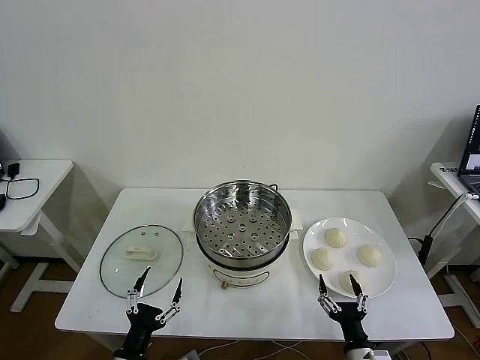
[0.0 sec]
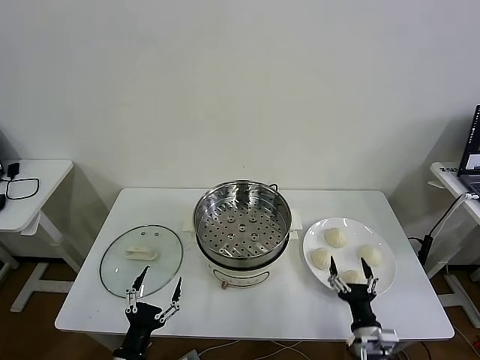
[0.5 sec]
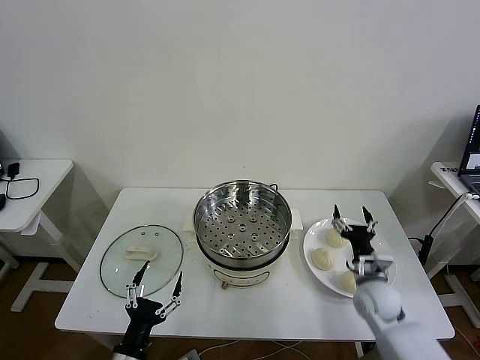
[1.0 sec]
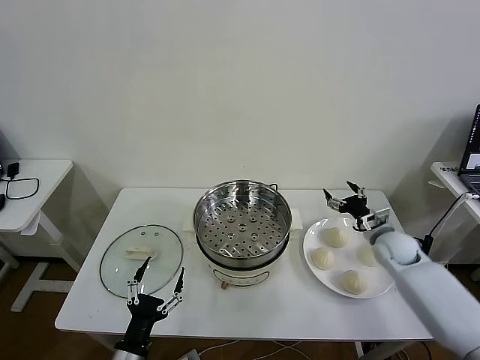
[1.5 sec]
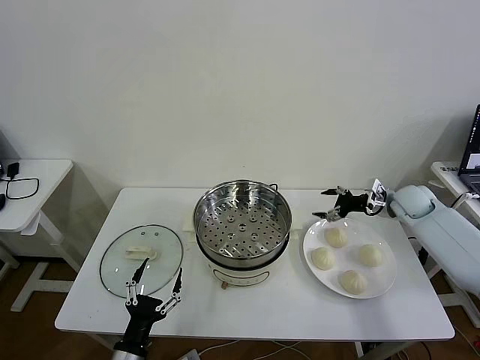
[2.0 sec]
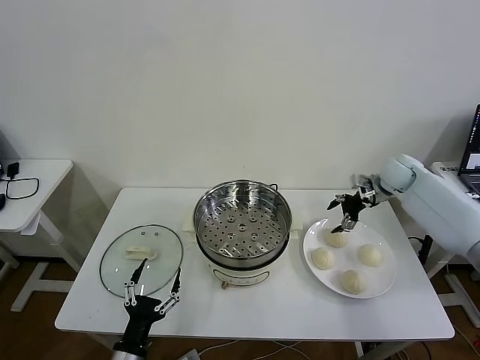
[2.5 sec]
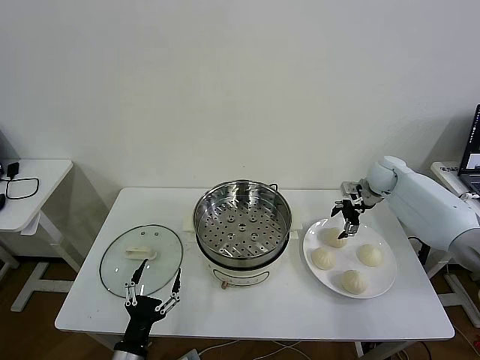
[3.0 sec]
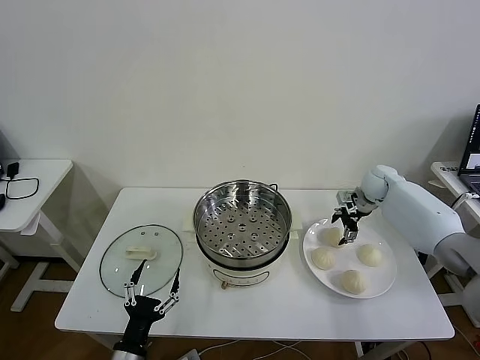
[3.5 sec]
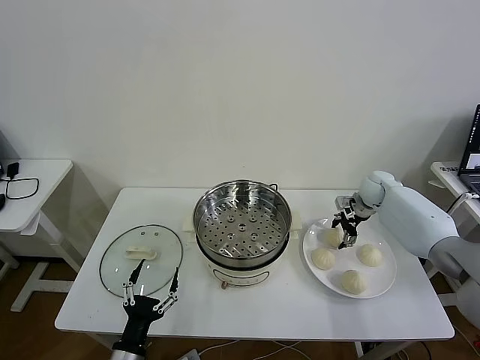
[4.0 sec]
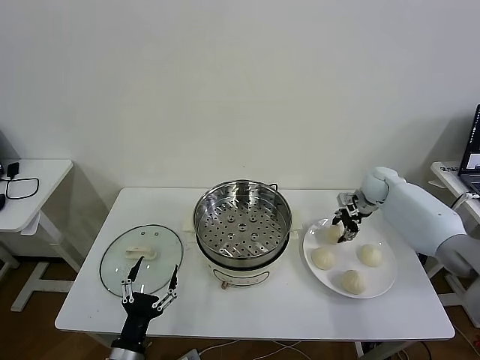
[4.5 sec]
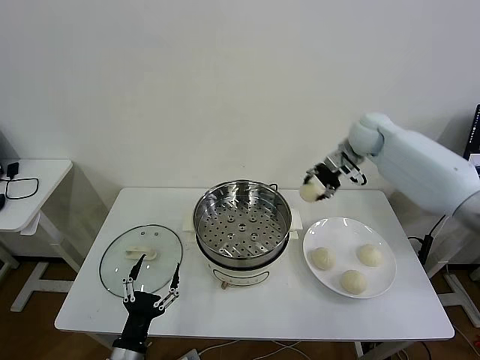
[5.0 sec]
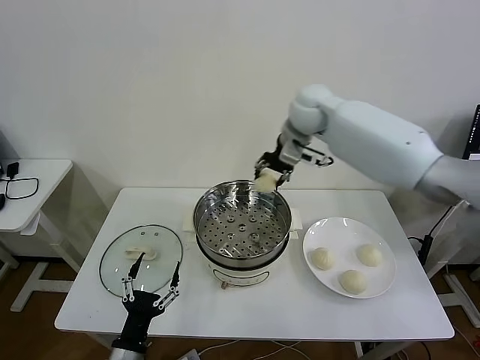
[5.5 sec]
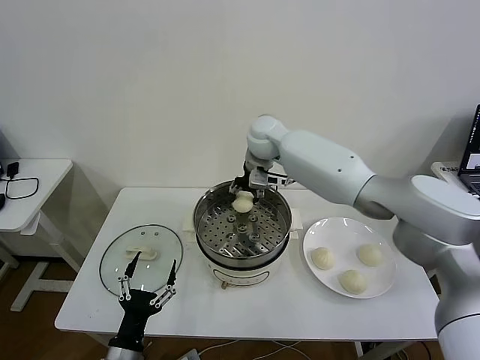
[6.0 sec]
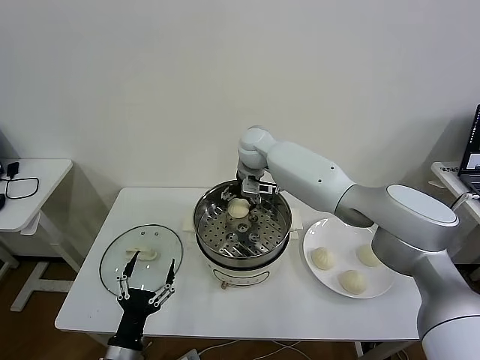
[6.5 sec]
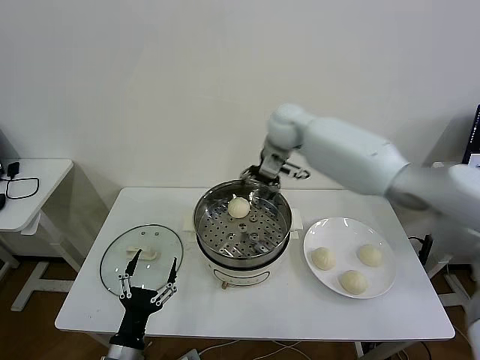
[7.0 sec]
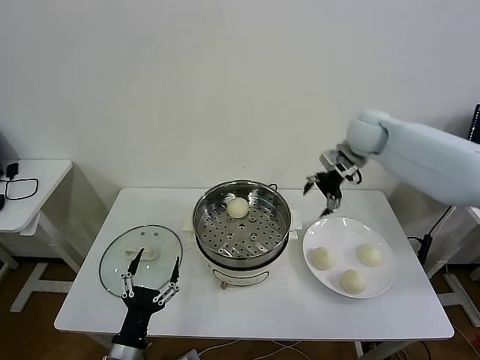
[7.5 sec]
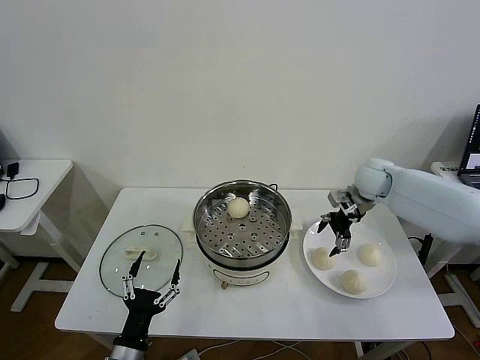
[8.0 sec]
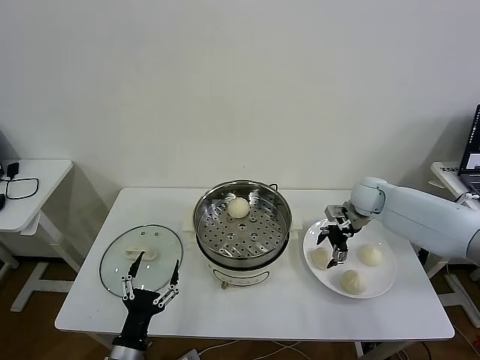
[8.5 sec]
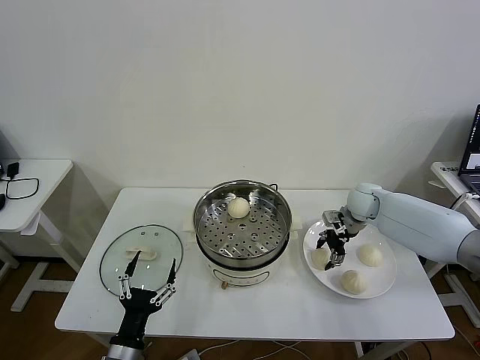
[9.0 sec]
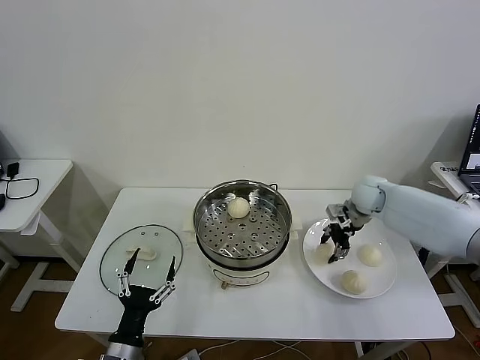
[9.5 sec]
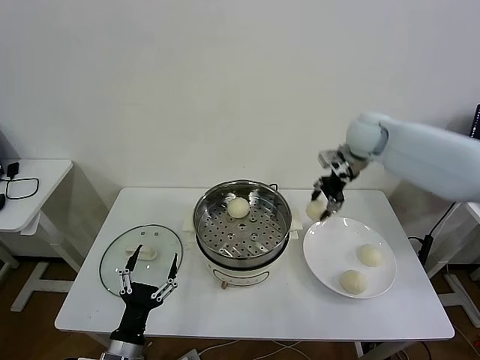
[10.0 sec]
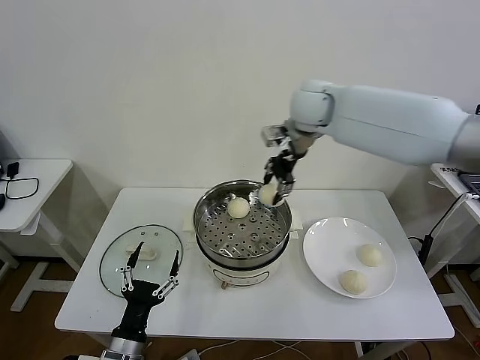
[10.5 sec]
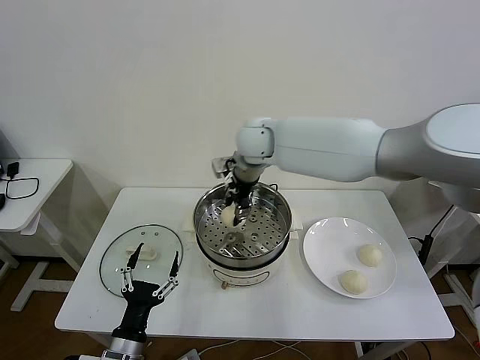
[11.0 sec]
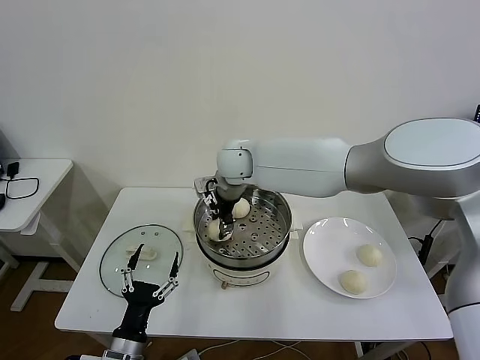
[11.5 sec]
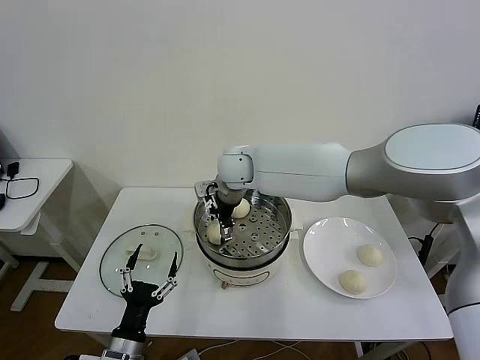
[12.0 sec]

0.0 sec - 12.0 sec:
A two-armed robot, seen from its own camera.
Task of the whole recording: take steamed baozi put them in steamer then cover it.
Step, 0.0 sec - 4.0 sec: Grasp the baozi in the plate with right gripper.
Step, 4.5 sec - 7.0 sec: Place the baozi on the steamer with right gripper.
Step, 7.5 sec - 9.0 sec: Grasp the baozi in the plate with right gripper.
2.0 sec - 4.0 sec: The right gripper heads to the left and forward, covering approximately 10 cm.
4.0 sec - 6.0 sec: The right gripper heads to the left and upward, covering approximately 35 cm, and closes up.
6.0 sec - 8.0 sec: The right gripper moves to the right, approximately 30 cm, and opens.
8.0 sec - 10.0 sec: The right gripper is displaced upward and to the left by approximately 15 cm, and closes its fingers.
10.0 sec - 12.0 sec: The right gripper heads to the left, covering roughly 25 cm, and opens up.

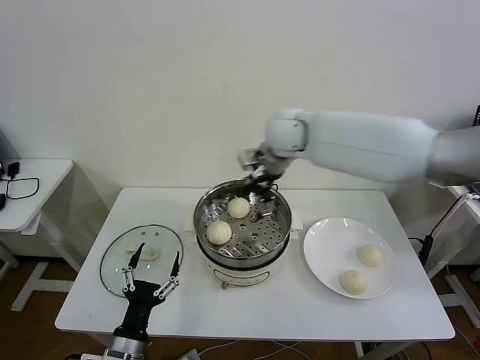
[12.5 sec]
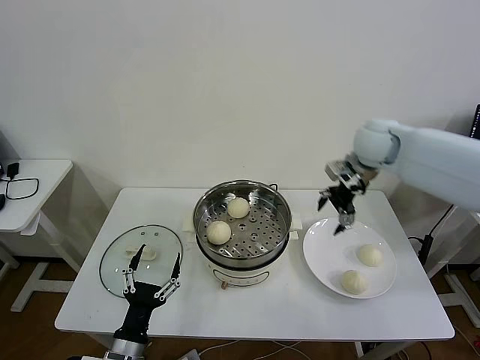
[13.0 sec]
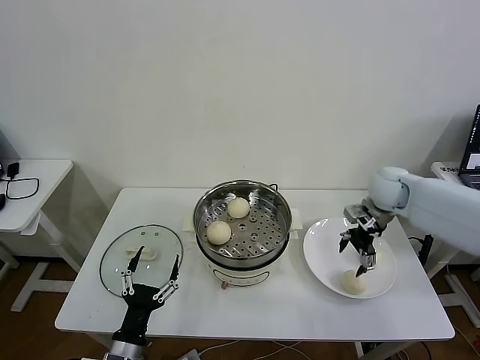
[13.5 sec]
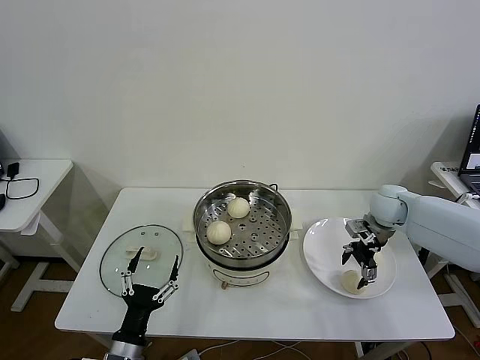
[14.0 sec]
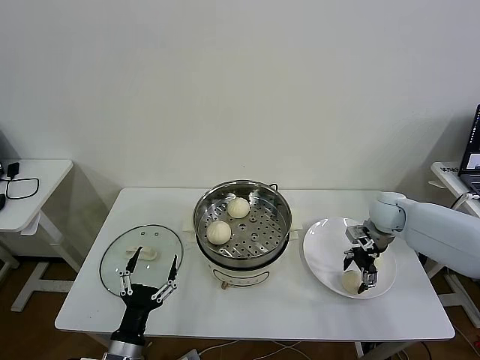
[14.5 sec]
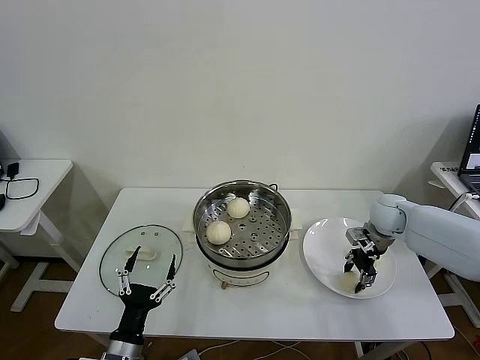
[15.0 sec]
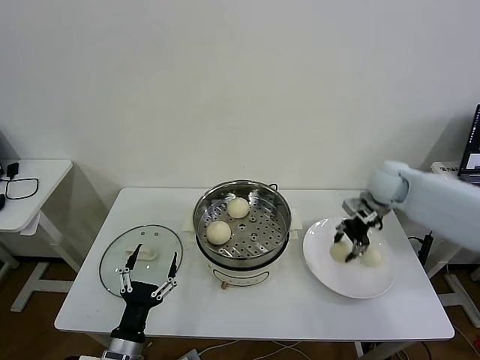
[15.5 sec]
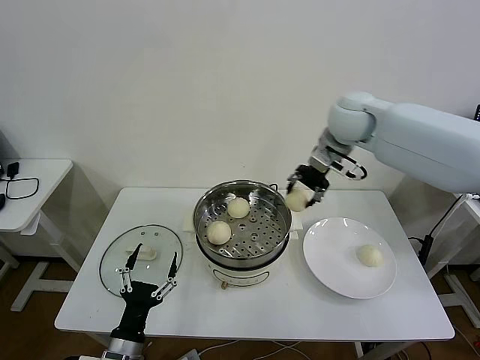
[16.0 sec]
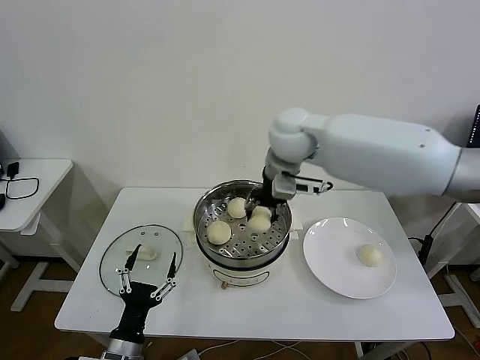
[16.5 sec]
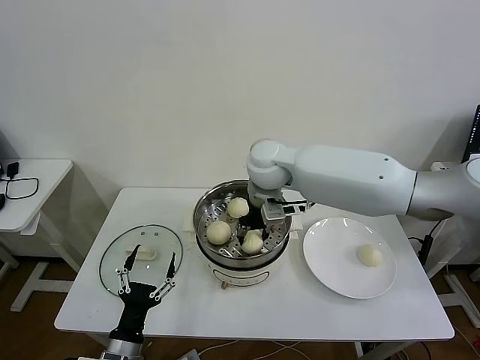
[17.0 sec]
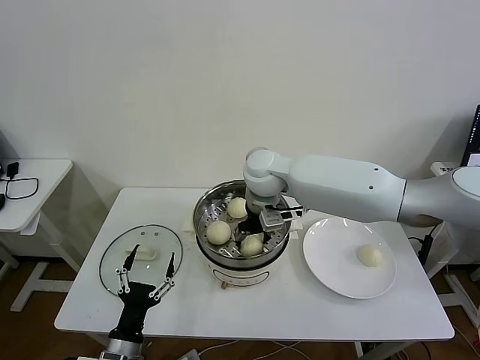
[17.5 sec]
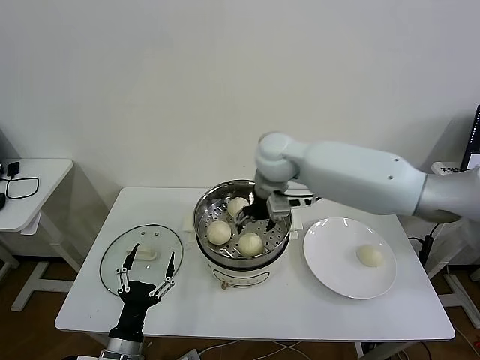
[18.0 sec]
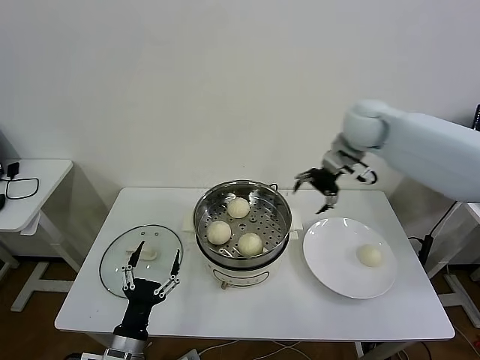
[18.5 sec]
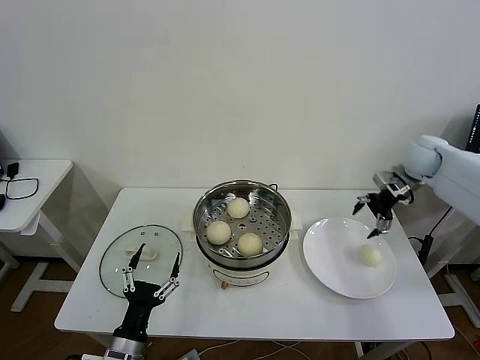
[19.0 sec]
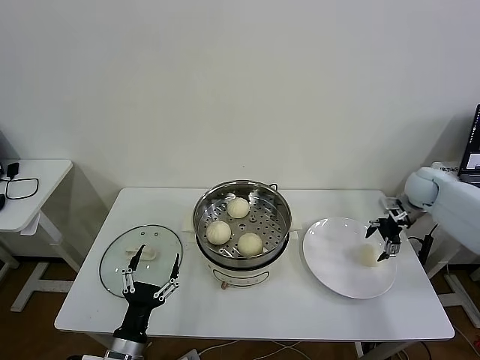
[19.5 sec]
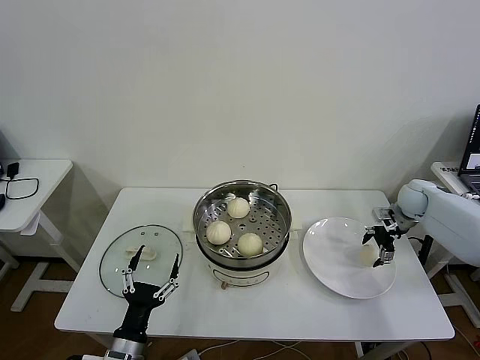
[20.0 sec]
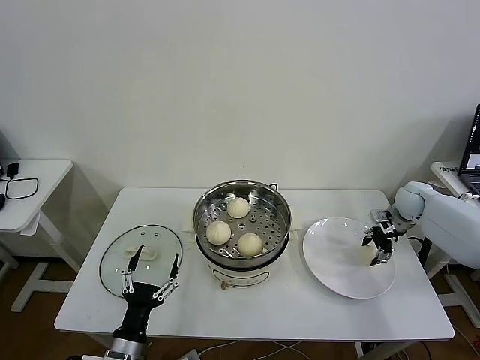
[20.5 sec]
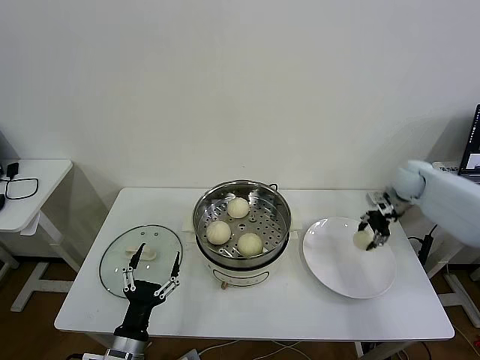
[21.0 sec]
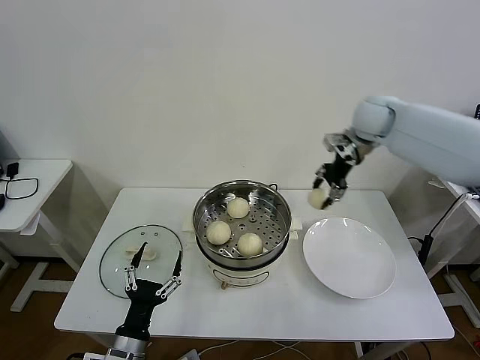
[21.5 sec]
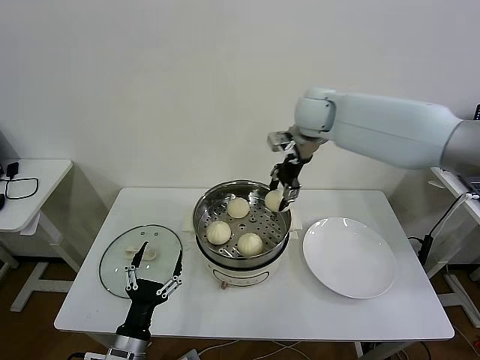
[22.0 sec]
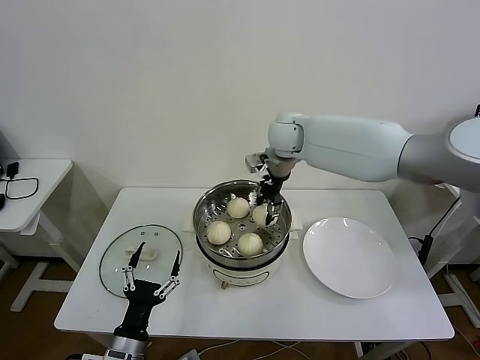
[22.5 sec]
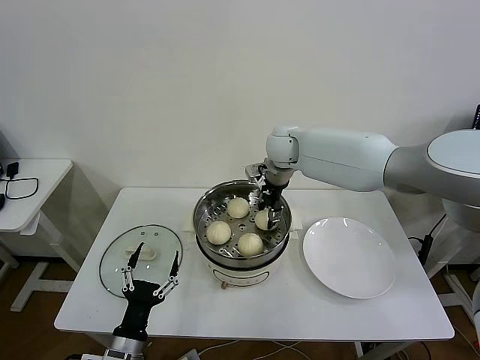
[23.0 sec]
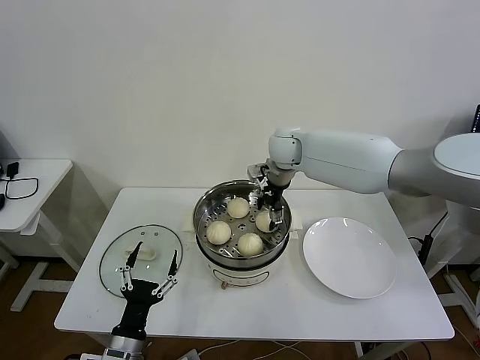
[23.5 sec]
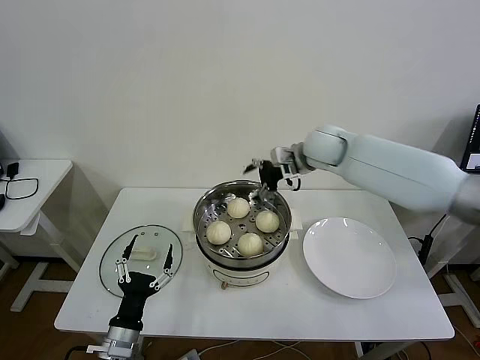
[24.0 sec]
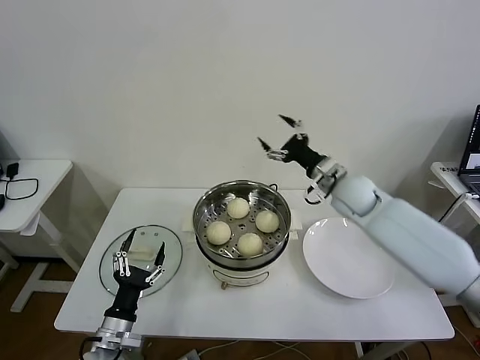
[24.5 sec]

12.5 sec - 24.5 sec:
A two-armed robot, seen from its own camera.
Task of the whole recording: take steamed baozi put them in steamer then cover it.
Step, 12.5 sec - 15.0 sec: Grasp the baozi in the plate with right gripper.
Step, 15.5 sec - 18.0 sec: Place the baozi on the steamer with right gripper.
Step, 18.5 sec - 20.5 sec: Grasp the baozi in the plate with right gripper.
Step, 21.0 sec - 24.0 sec: Place the baozi on the steamer with right gripper.
12.5 sec - 14.5 sec: The right gripper goes about 35 cm to the right and downward.
14.5 sec - 16.5 sec: The right gripper travels to the left and upward by some 35 cm, and closes its fingers.
16.5 sec - 18.5 sec: The right gripper travels to the right by about 20 cm, and opens its fingers.
18.5 sec - 20.5 sec: The right gripper moves downward and to the right, approximately 30 cm, and closes up.
20.5 sec - 22.5 sec: The right gripper moves to the left and upward, roughly 40 cm.
22.5 sec - 24.5 sec: The right gripper heads to the right, downward and backward, covering about 20 cm, and opens its fingers; the left gripper ends up roughly 5 cm from where it was.

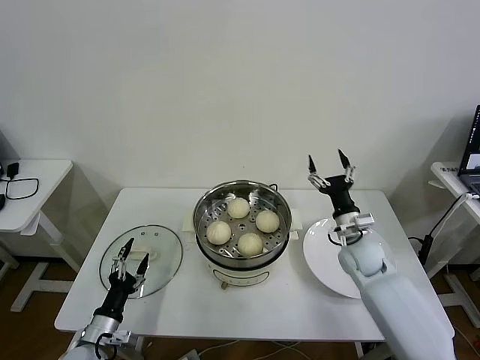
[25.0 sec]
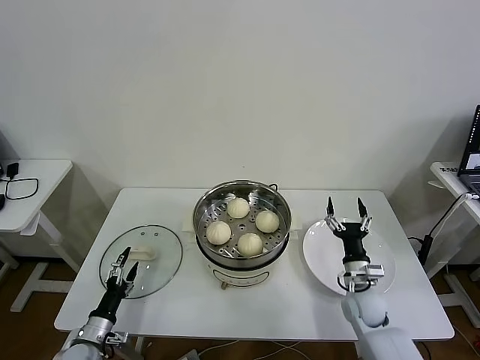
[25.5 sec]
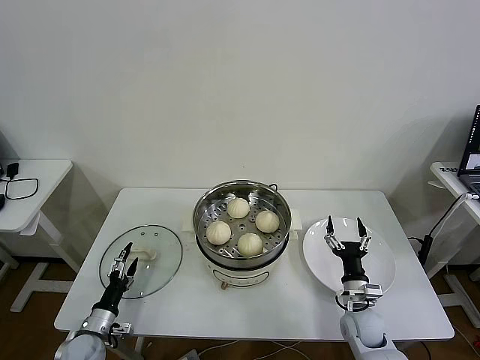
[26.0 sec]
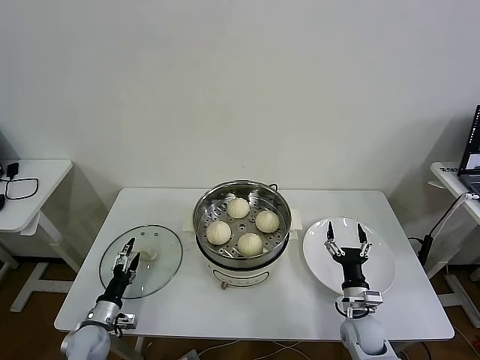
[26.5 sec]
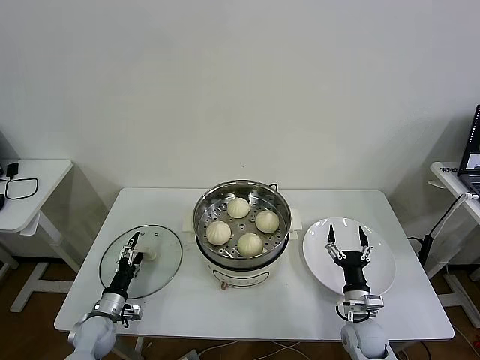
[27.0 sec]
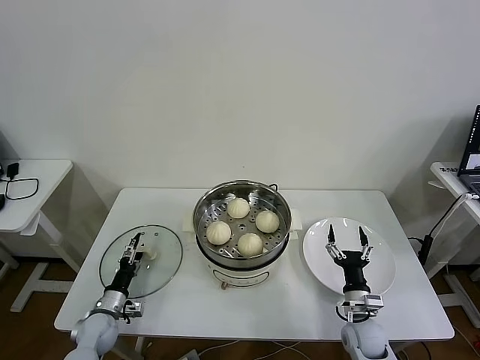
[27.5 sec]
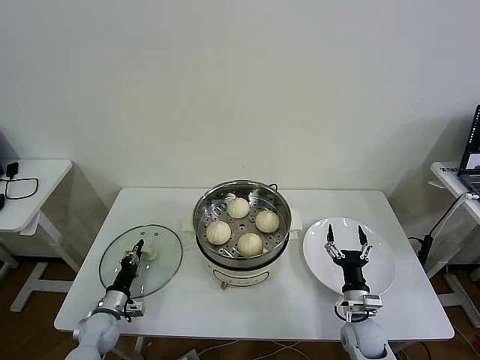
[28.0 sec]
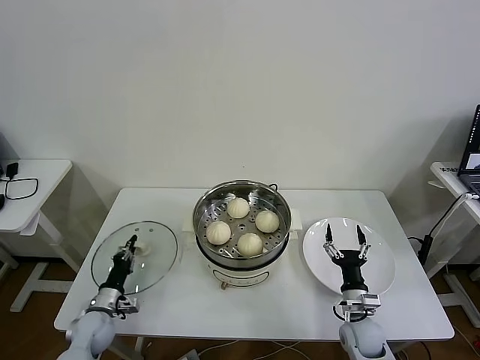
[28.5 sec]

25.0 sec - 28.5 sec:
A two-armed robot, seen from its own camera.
Task of the whole recording: take steamed baozi put them in steamer then cover it.
Step, 25.0 sec - 28.0 sec: Grasp the pot lid with left gripper.
25.0 sec - 27.0 sec: The left gripper is displaced forward and downward by roughly 10 cm, while the right gripper heads backward and downward, covering about 20 cm.
27.0 sec - 28.5 sec: The left gripper closes up.
